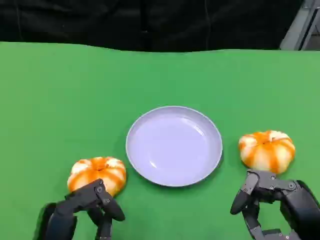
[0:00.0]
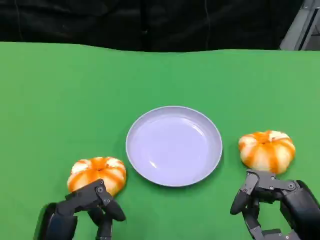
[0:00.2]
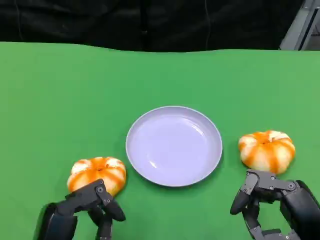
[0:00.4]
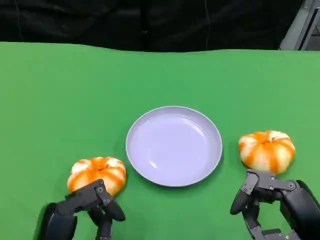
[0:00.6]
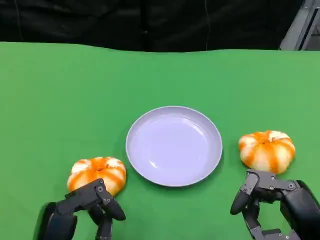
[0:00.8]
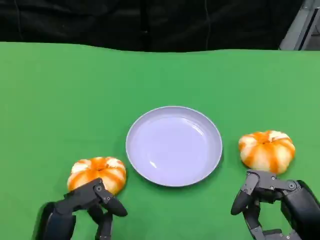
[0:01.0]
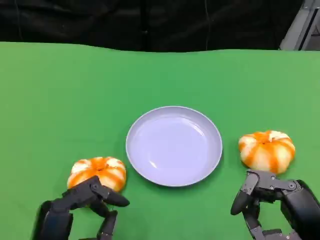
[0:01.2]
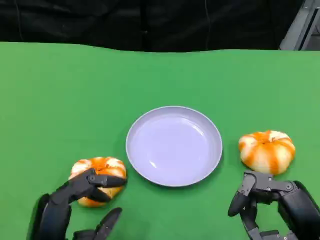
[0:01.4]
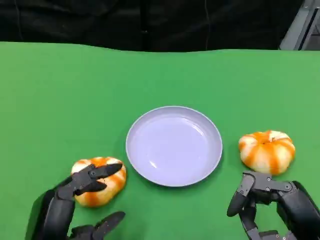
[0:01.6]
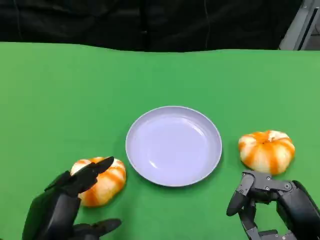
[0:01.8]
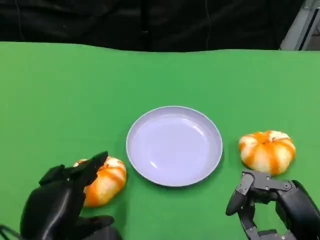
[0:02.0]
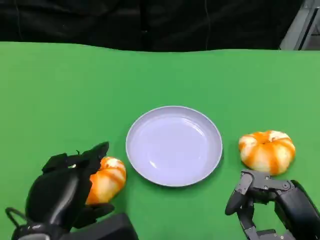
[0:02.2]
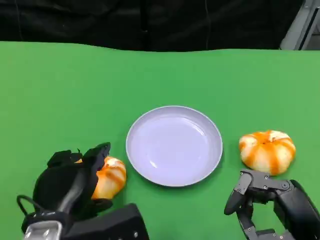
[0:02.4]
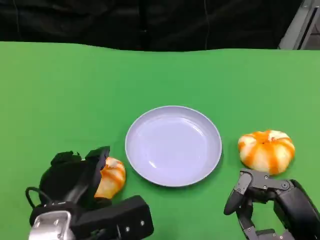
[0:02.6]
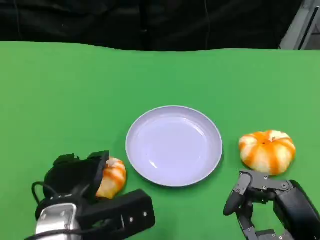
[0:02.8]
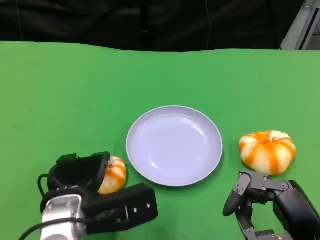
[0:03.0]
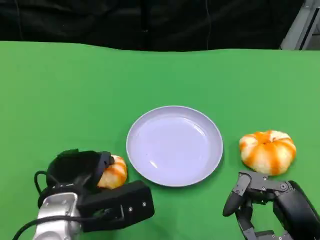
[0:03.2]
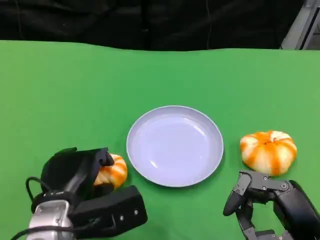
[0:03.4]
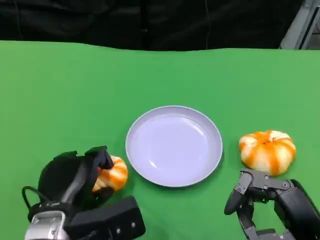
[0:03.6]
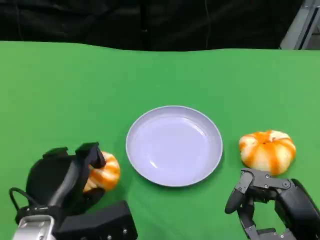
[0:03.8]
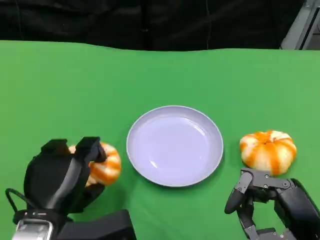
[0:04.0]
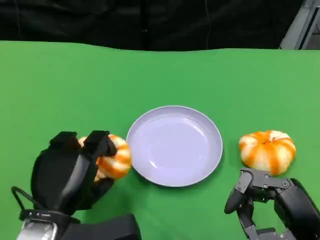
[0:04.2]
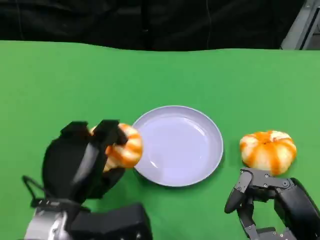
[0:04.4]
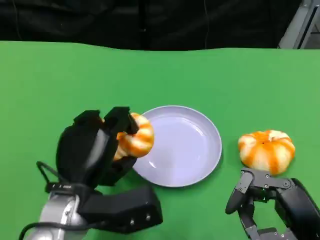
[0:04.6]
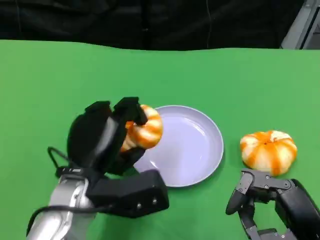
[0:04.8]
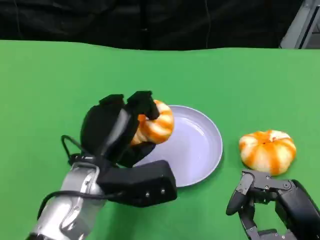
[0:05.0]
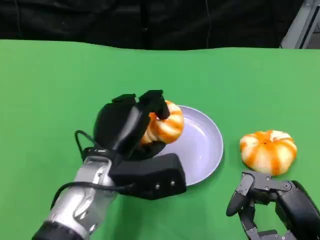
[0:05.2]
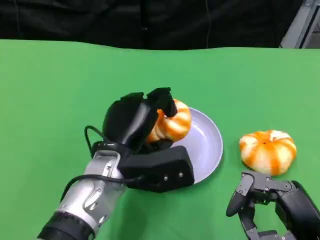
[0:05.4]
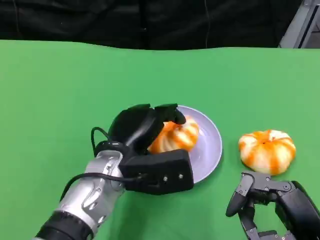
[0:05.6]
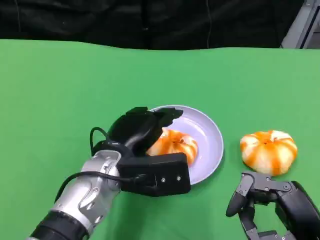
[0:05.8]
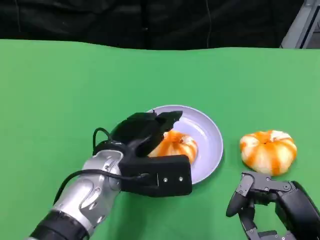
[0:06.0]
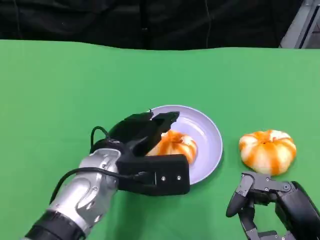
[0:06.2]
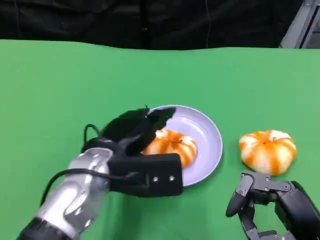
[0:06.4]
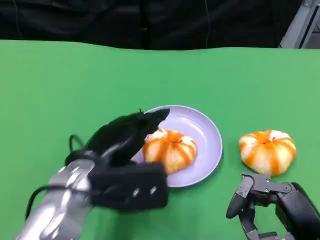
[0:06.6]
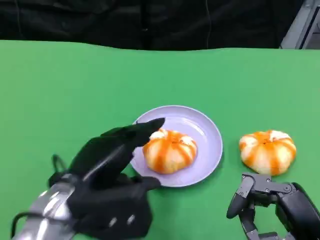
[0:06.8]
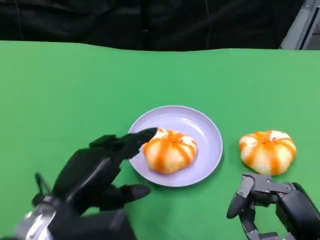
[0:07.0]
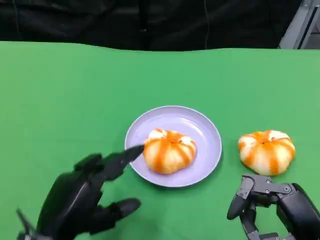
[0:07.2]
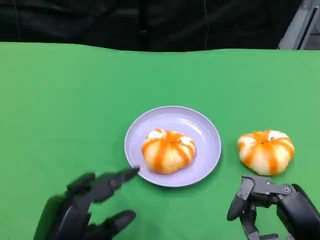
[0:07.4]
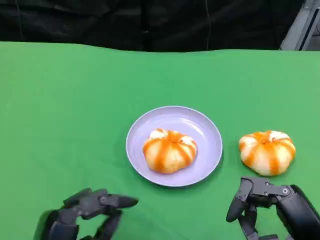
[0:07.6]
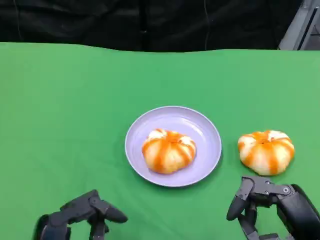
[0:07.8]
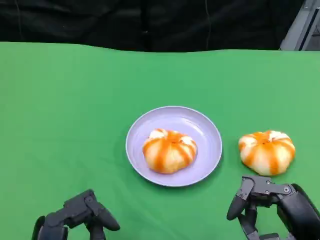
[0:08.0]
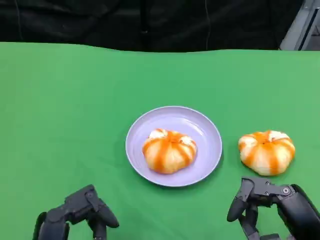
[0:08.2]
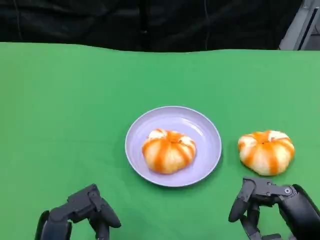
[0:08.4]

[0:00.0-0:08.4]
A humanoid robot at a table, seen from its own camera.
Task of the whole recording: Grasp the bread from the table and place it into the plate.
0:00.0 to 0:01.4: The hands make only small movements.
0:01.4 to 0:02.8: The left hand is displaced forward by some 10 cm.
0:04.2 to 0:05.6: The left hand moves forward and to the right, about 10 cm.
0:05.6 to 0:07.0: The left hand goes approximately 10 cm backward and to the left.
0:07.0 to 0:08.4: The left hand shifts roughly 5 cm backward.

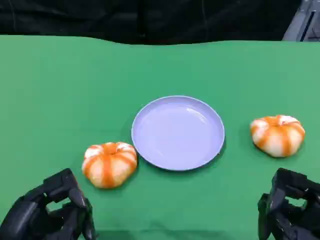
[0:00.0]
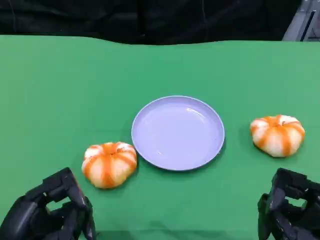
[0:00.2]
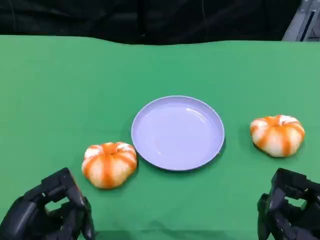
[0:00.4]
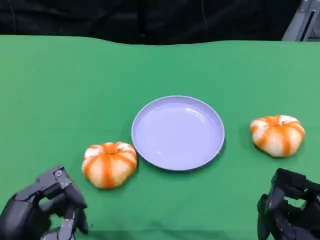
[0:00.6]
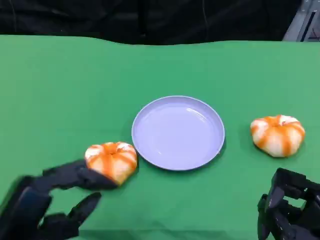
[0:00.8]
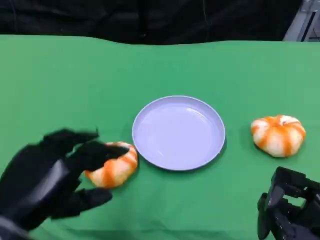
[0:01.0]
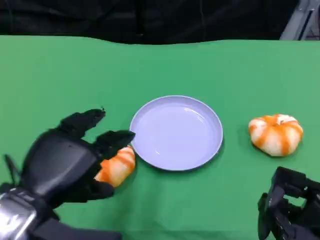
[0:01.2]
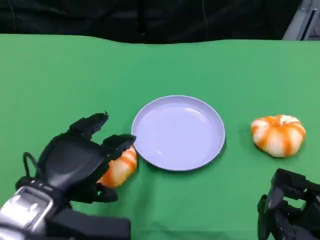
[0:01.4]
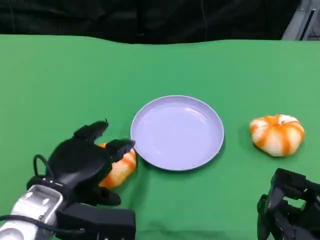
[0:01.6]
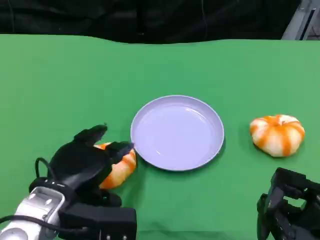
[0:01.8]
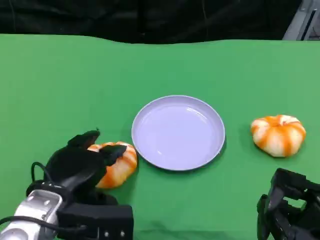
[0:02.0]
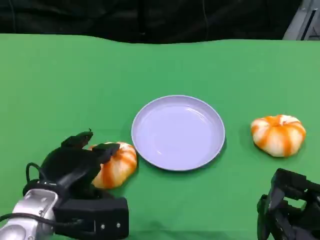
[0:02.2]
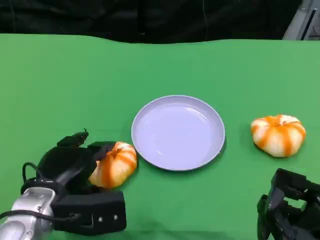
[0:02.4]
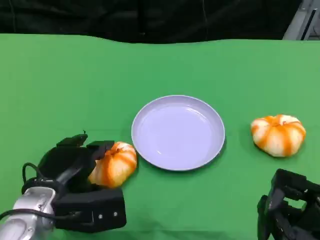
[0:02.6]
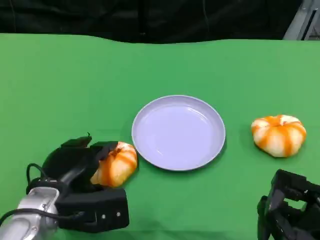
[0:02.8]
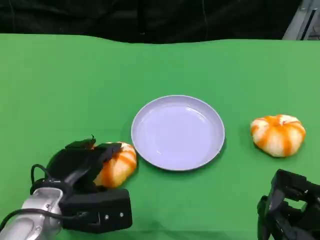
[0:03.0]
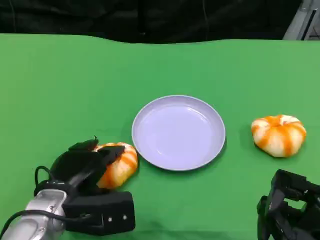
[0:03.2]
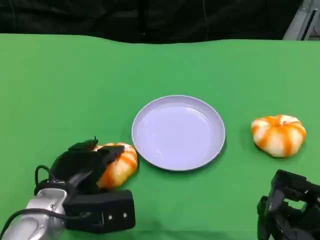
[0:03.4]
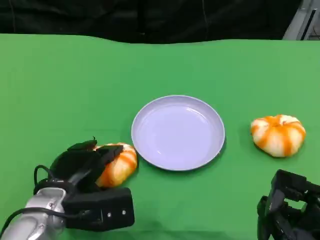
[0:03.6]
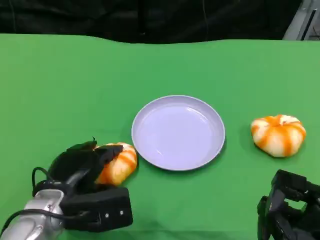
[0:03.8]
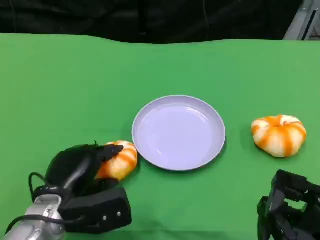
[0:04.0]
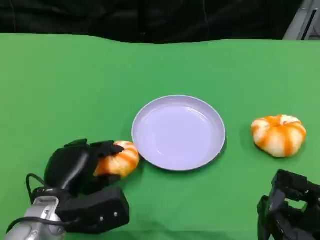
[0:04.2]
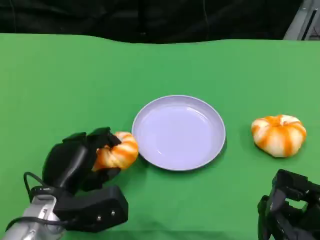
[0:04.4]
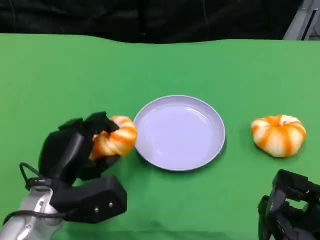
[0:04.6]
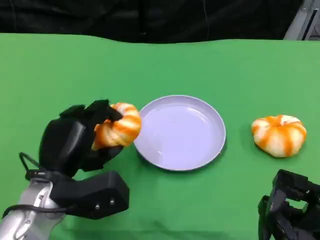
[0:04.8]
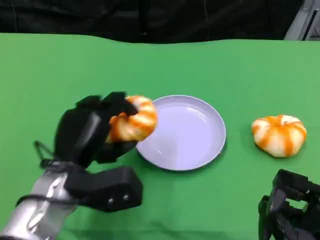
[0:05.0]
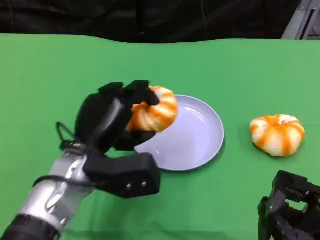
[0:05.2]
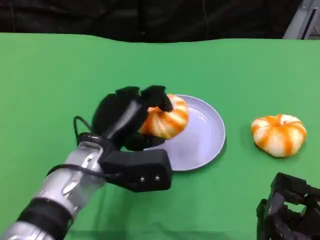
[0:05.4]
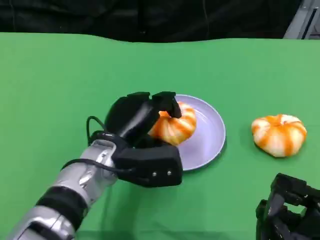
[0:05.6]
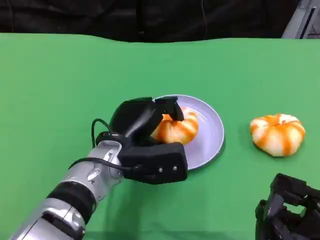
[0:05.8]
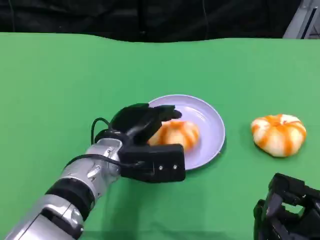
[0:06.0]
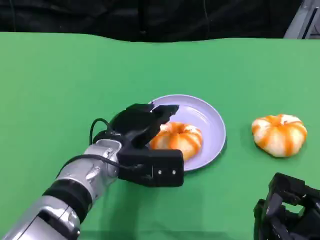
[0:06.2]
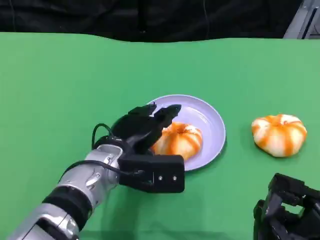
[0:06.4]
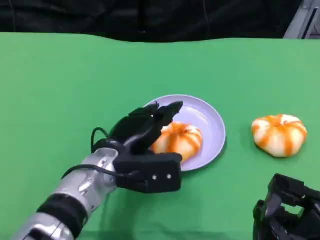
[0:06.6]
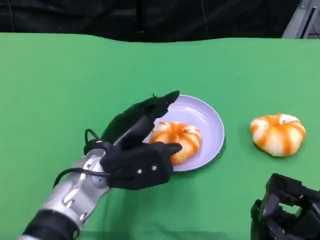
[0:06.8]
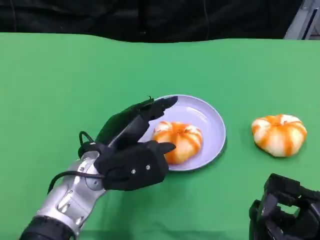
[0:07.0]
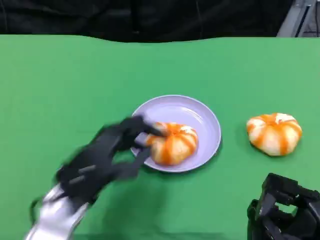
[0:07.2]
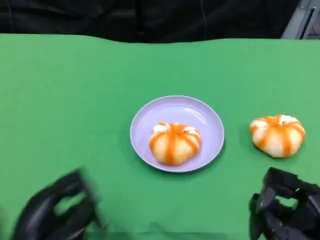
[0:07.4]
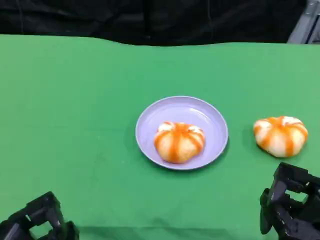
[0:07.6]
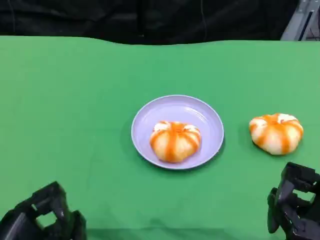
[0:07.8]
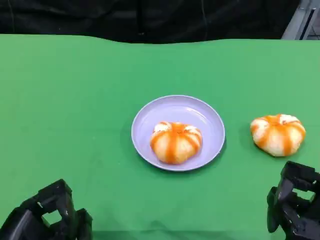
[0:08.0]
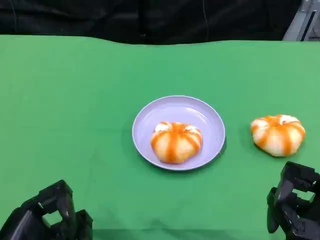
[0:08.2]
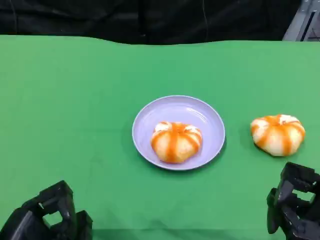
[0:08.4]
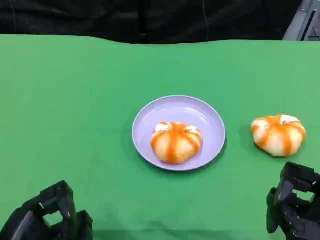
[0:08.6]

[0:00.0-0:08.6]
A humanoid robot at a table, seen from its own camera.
Task of the whole recording: Grasp the bread from the table and place it into the plate.
0:00.0 to 0:01.4: The left hand travels forward by about 10 cm.
0:01.4 to 0:02.8: The left hand travels downward by some 5 cm.
0:04.4 to 0:05.8: The left hand heads to the right and forward, covering roughly 10 cm.
0:05.8 to 0:07.2: The left hand travels to the left and backward by approximately 10 cm.
0:07.2 to 0:08.6: The left hand heads backward and to the left, covering roughly 10 cm.

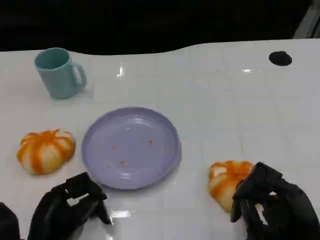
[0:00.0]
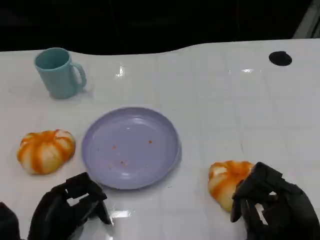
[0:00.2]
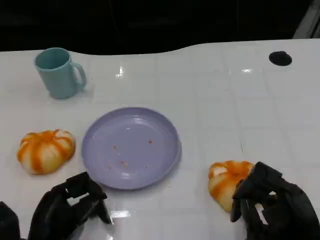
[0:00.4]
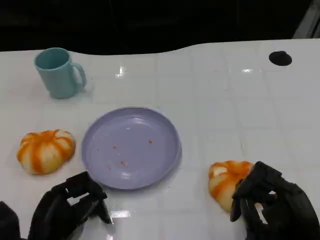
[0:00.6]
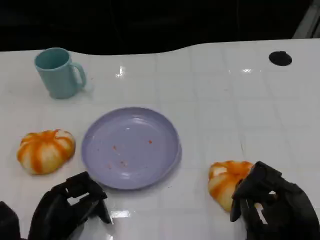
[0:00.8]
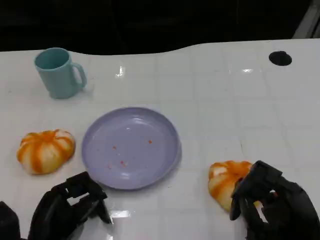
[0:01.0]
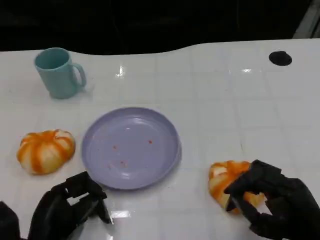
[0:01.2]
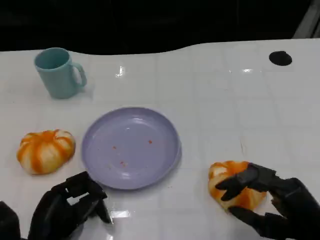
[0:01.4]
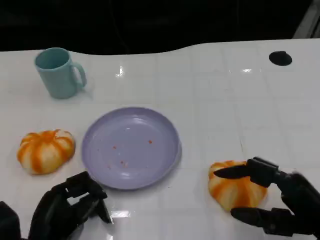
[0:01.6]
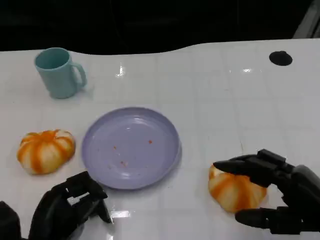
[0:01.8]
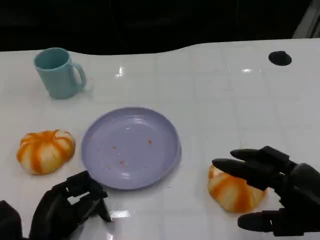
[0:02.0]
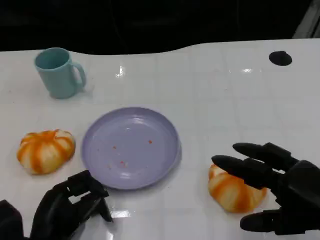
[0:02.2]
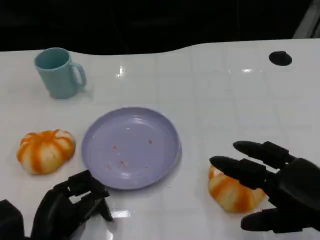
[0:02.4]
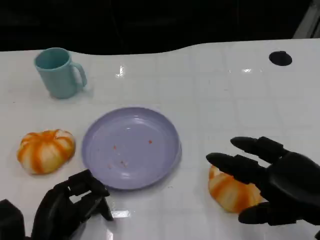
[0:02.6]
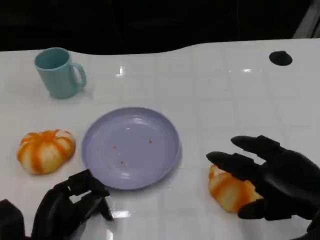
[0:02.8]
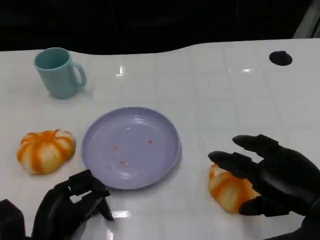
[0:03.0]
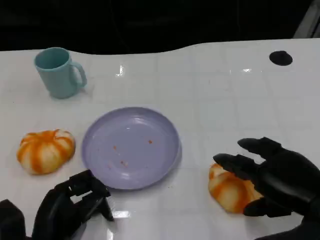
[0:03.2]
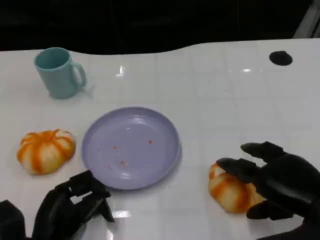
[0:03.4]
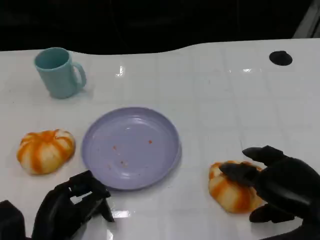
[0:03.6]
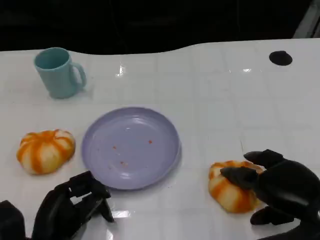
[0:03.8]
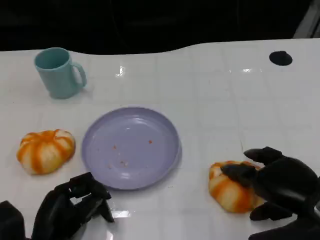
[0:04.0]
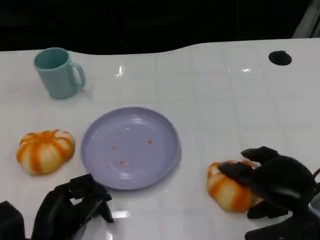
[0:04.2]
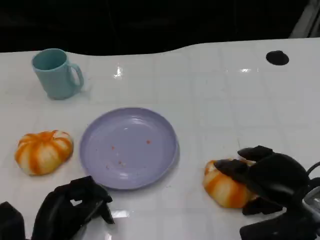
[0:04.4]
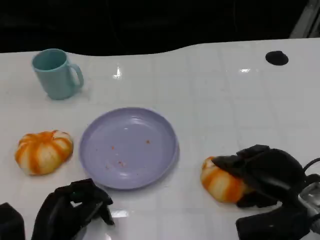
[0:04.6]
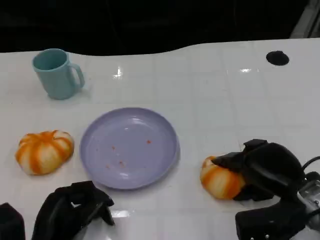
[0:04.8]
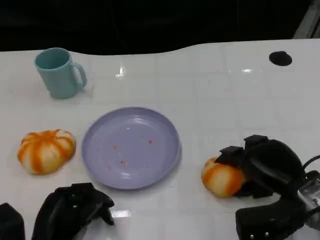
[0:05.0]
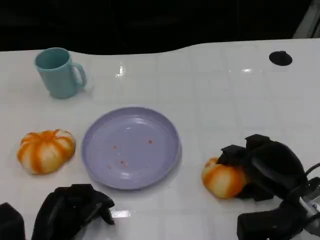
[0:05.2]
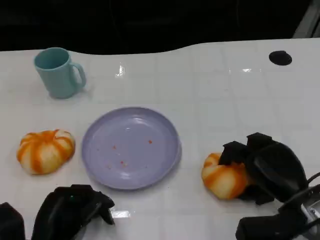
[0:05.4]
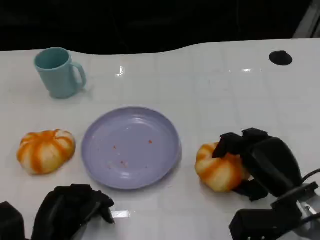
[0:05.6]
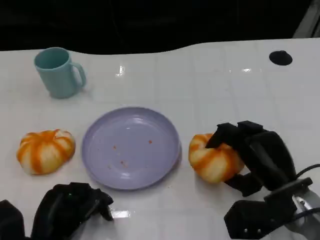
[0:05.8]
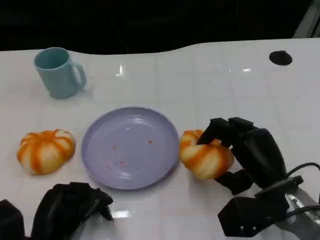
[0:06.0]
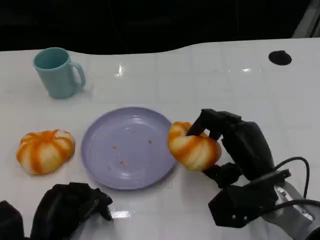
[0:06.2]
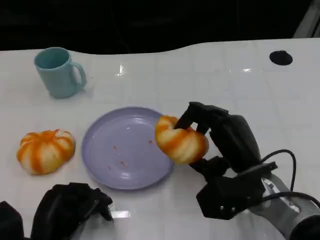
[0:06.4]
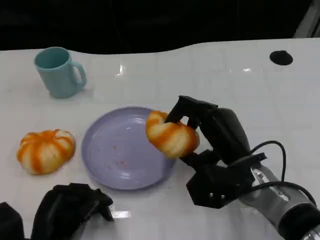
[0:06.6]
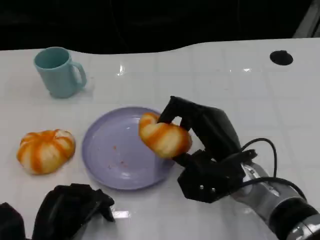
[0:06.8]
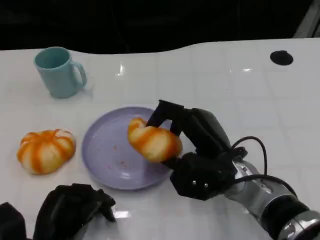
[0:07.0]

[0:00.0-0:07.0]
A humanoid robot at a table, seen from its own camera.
Task of the whole recording: Grasp the bread from the table and place it into the plate.
0:01.4 to 0:02.8: The right hand travels upward by approximately 5 cm.
0:02.8 to 0:04.2: The right hand ends up about 5 cm from where it was.
0:04.2 to 0:05.6: The right hand changes place by about 5 cm.
0:05.6 to 0:07.0: The right hand heads to the left, covering about 10 cm.
